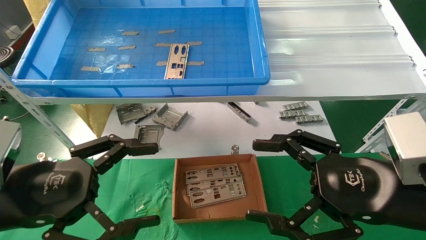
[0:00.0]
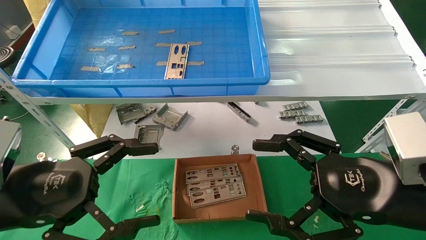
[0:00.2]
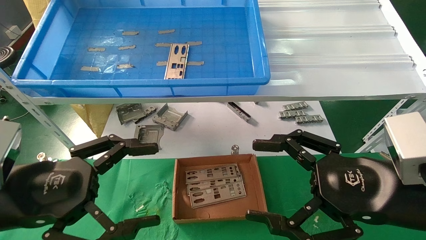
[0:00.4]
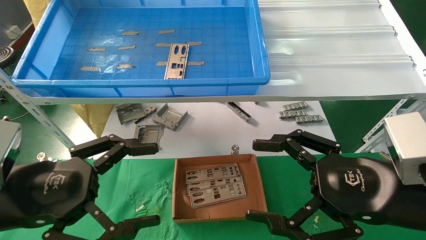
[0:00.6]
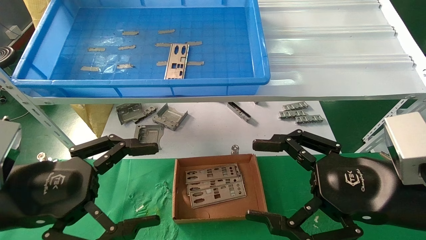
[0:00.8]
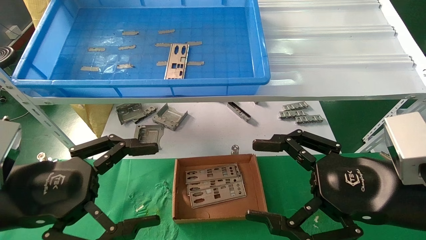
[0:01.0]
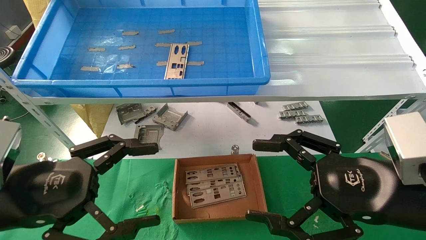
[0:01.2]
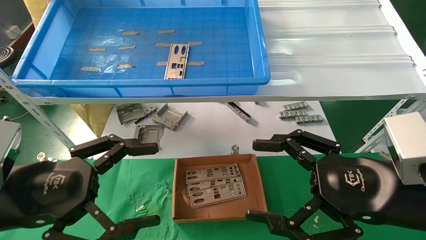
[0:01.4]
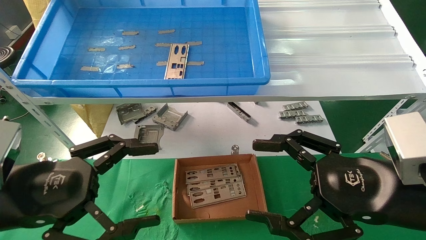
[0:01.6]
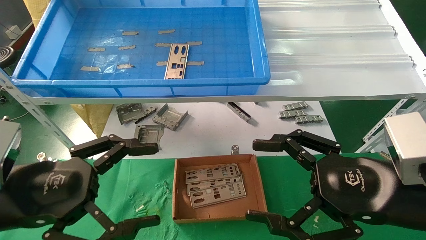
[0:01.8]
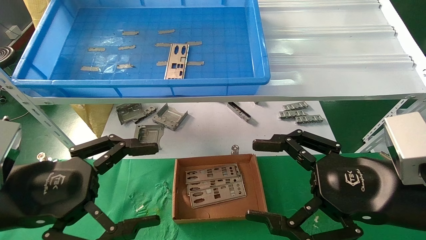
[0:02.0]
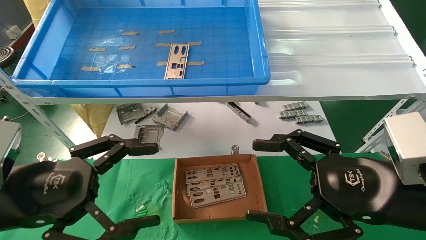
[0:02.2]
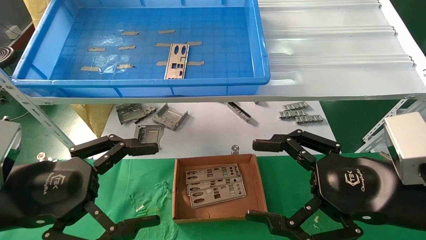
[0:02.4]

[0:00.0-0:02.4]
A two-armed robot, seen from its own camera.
Task of the whole recording: pick up the parts on the tray and put them in the cardboard box.
0:00.0 to 0:02.4: Both grippers stay put.

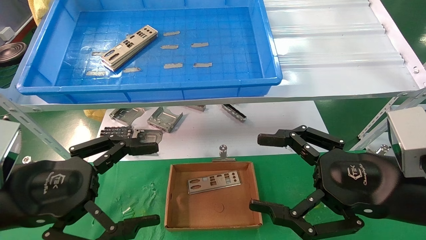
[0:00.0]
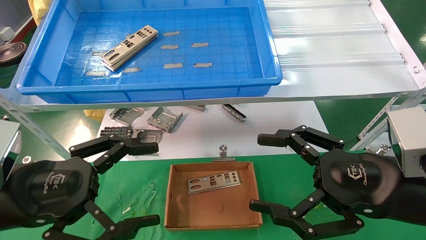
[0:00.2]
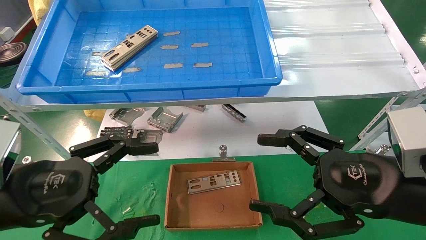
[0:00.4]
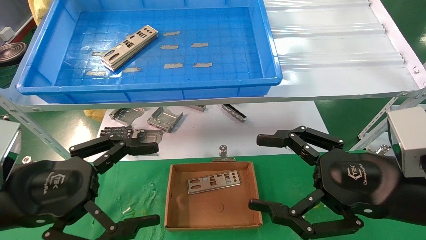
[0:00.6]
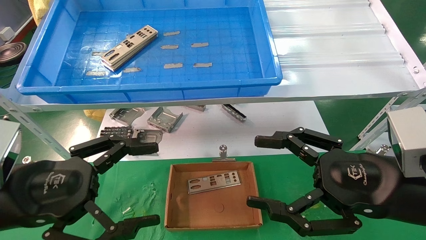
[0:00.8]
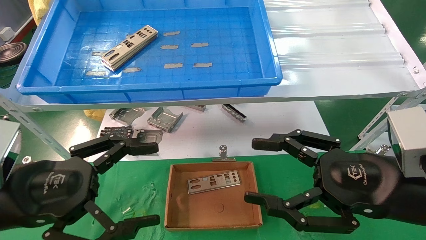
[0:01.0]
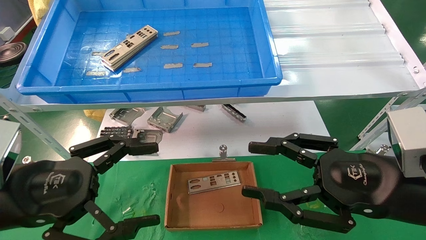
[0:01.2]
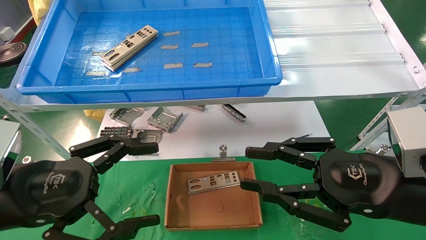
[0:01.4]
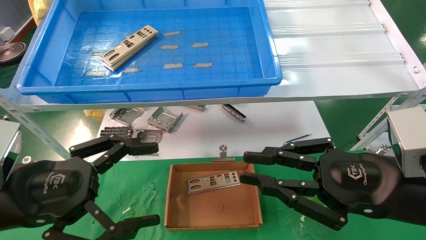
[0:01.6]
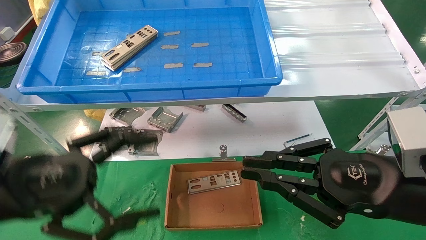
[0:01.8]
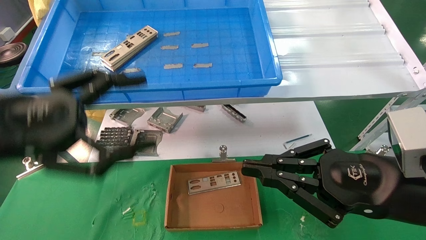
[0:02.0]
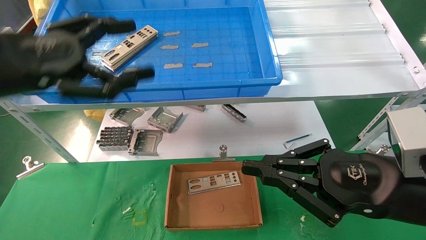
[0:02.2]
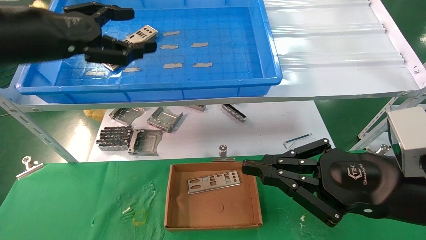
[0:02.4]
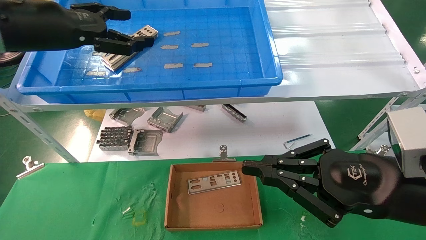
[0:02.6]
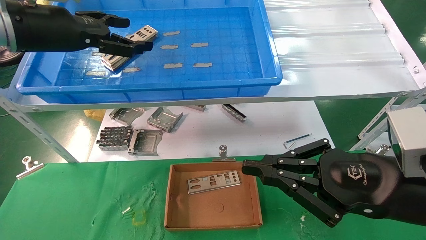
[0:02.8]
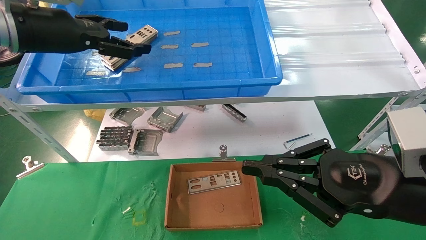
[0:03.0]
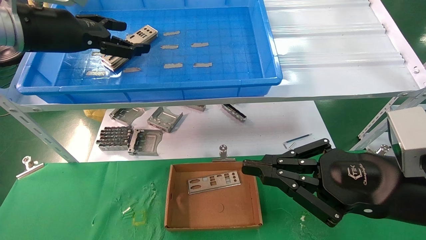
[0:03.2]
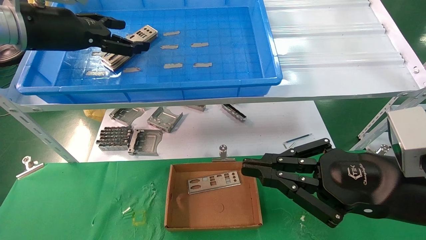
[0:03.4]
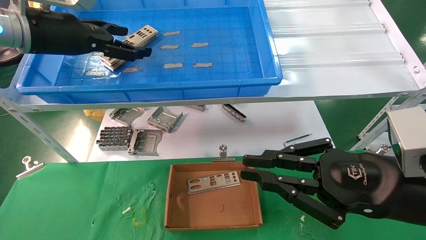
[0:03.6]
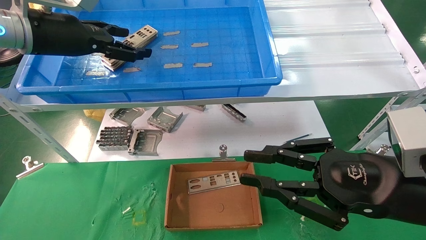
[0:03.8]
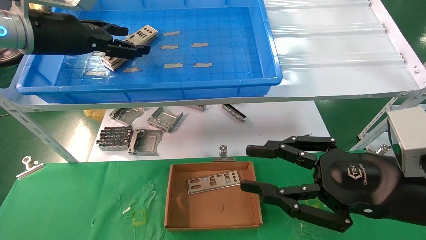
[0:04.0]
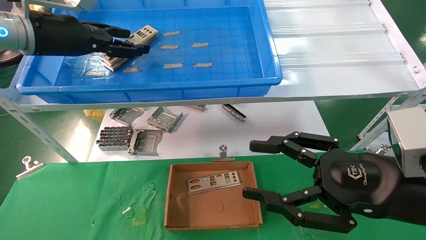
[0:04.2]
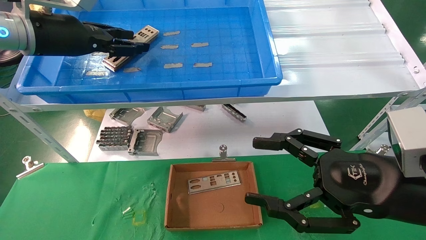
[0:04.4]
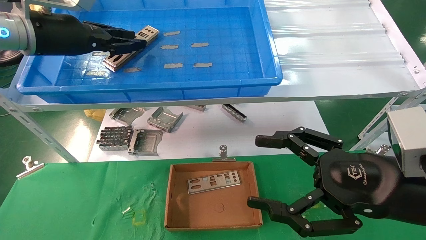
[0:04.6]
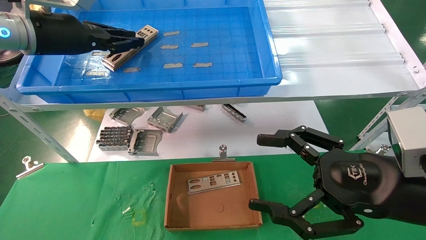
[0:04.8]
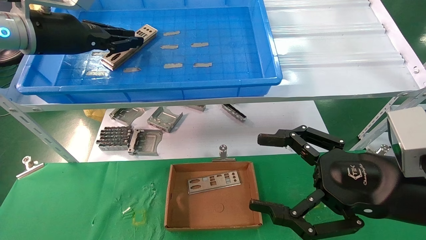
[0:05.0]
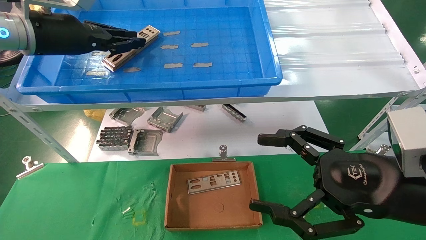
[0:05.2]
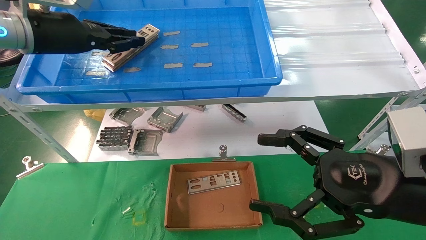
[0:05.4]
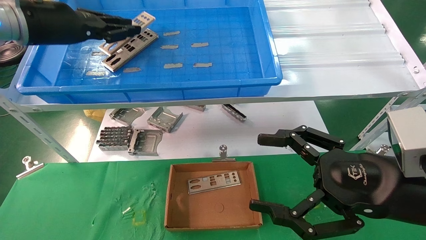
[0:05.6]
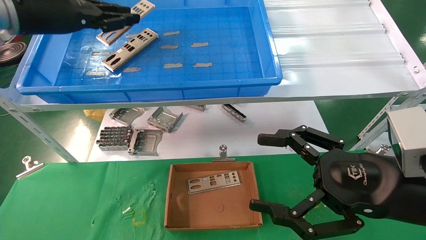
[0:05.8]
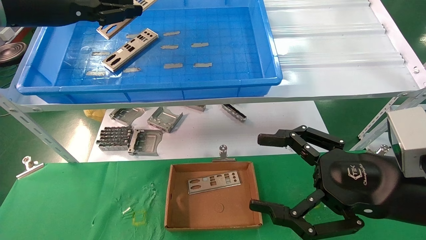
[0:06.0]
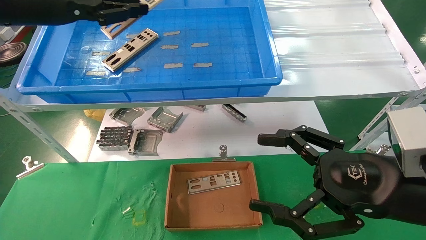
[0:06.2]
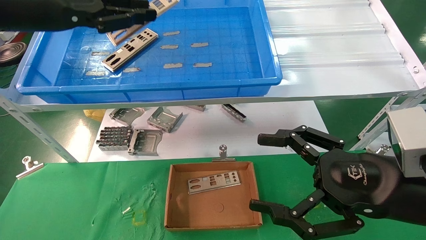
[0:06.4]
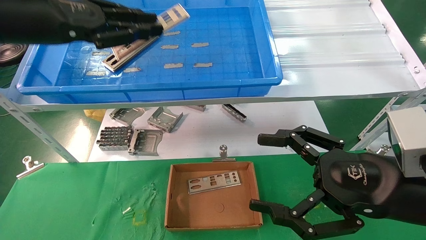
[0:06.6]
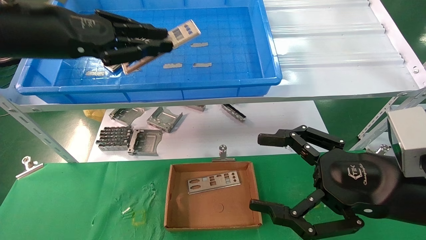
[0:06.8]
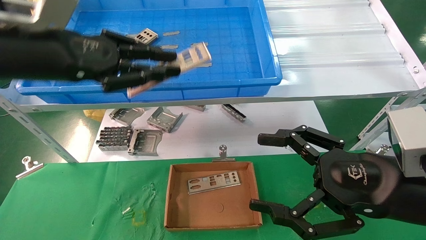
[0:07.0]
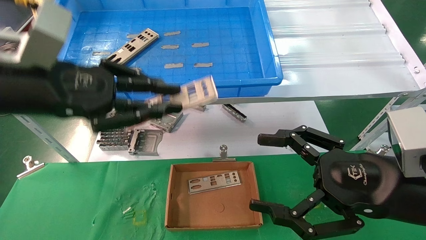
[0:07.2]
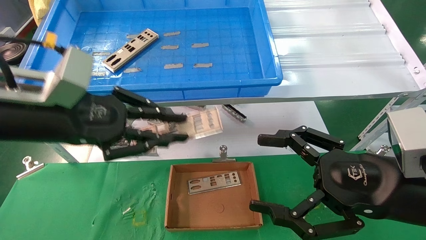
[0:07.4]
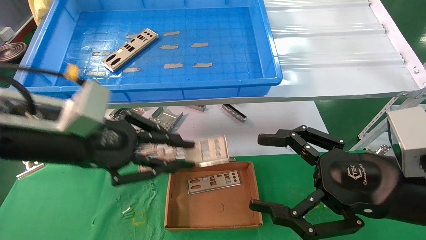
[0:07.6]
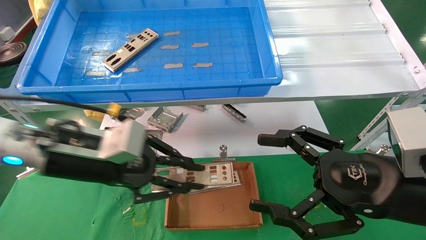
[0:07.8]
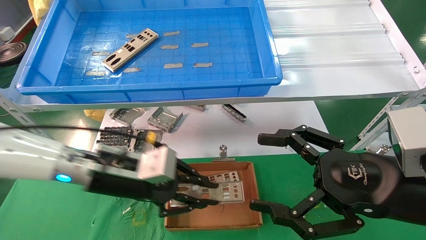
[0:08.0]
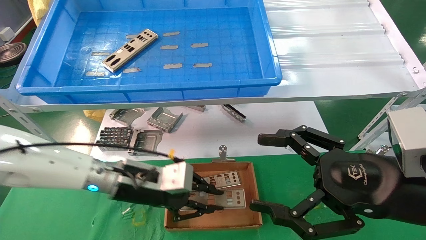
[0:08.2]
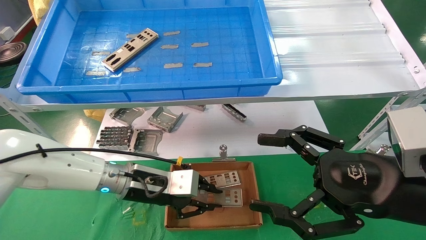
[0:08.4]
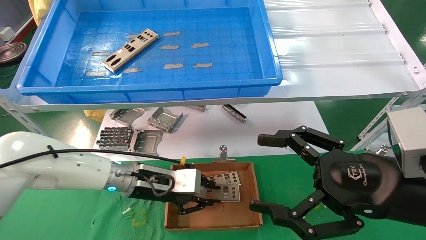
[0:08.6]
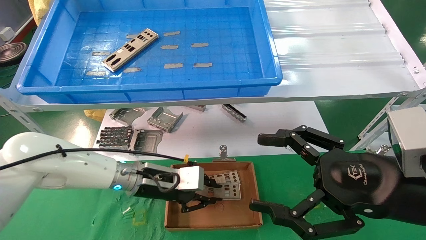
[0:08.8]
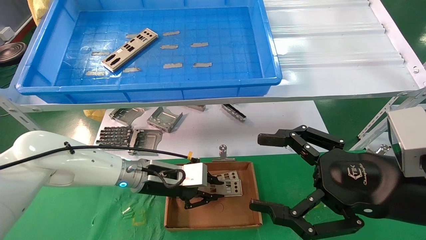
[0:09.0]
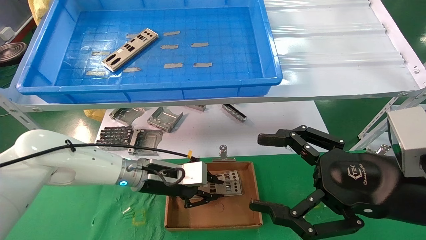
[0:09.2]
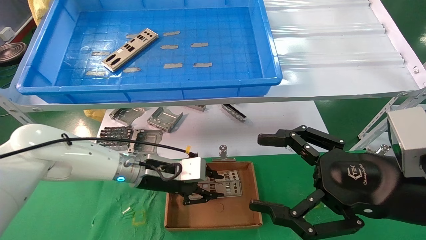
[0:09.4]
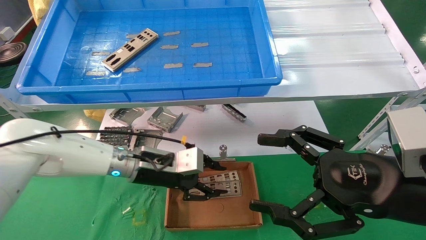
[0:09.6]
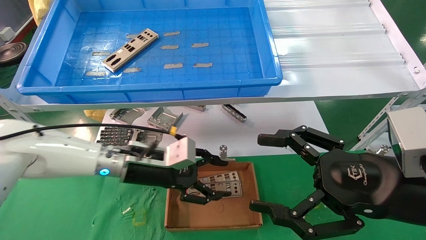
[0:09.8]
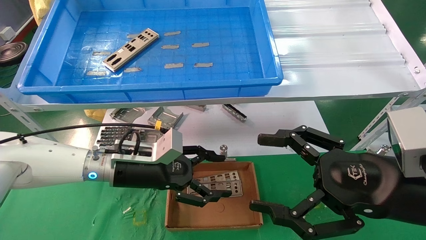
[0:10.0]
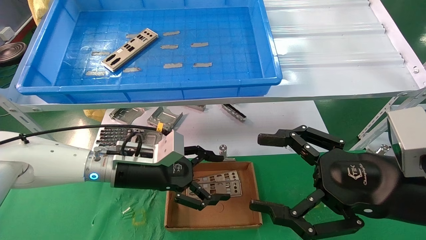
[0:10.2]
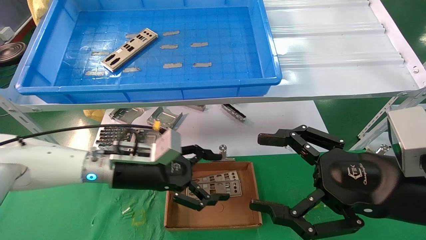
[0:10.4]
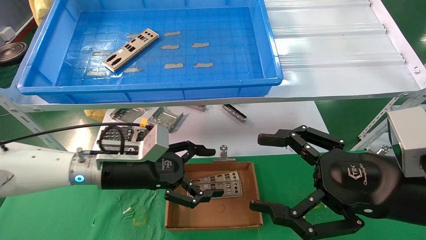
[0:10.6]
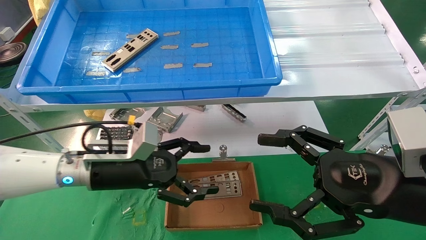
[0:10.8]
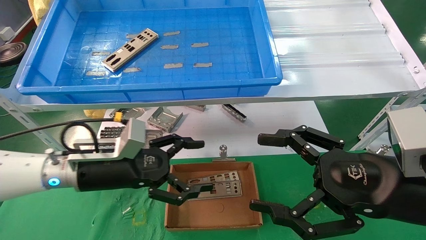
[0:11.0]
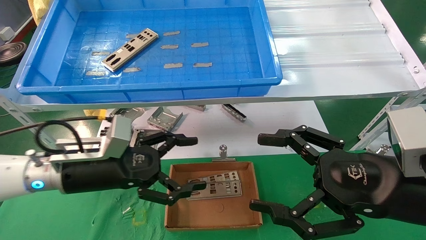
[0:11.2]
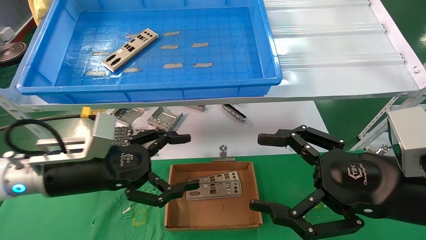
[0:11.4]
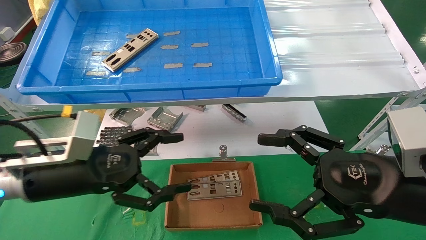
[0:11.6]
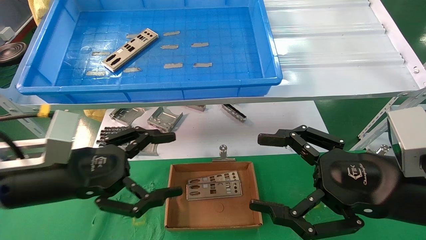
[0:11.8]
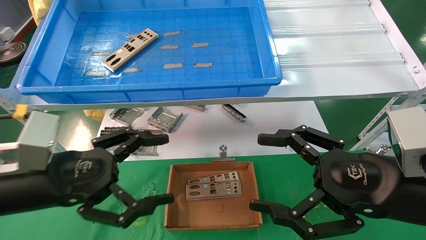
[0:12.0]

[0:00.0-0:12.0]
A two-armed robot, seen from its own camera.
Task of the whole recording: pick up the parts on the tray and put them in the cardboard box.
Step, 0:02.2 to 0:04.8: Pick up the IO bracket from the container box.
Step, 0:05.0 to 0:09.4: Place the IO bracket into the ingredient slot.
0:00.0 to 0:01.6: The right gripper closes.
0:01.6 to 0:03.0: The left gripper moves upward and forward, about 25 cm.
0:03.0 to 0:04.4: The right gripper opens its fingers; the left gripper closes.
0:04.4 to 0:06.0: The left gripper shifts by some 5 cm, and closes its fingers.
0:06.0 to 0:07.6: The left gripper travels downward, backward and to the right by approximately 20 cm.
0:07.6 to 0:09.0: The left gripper moves downward, forward and to the right, about 20 cm.
0:09.0 to 0:10.4: The left gripper changes place by approximately 5 cm, and opens its fingers.
0:10.4 to 0:12.0: The left gripper is displaced backward and to the left by roughly 15 cm.

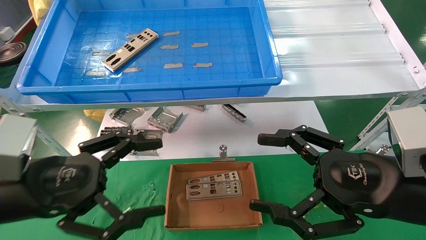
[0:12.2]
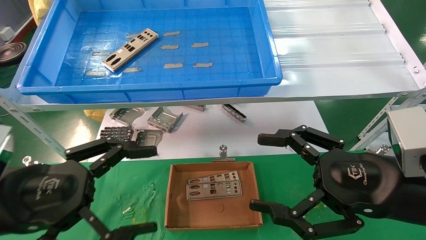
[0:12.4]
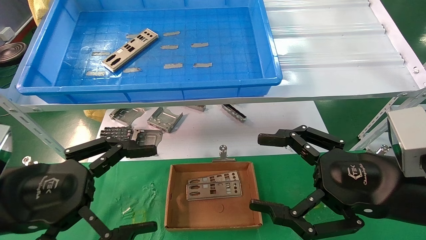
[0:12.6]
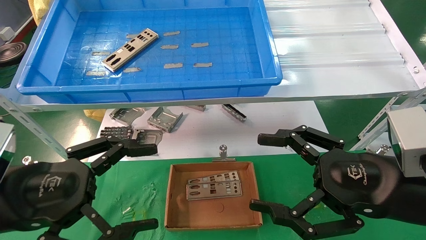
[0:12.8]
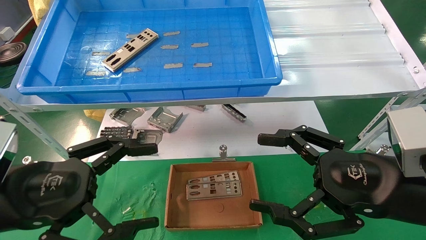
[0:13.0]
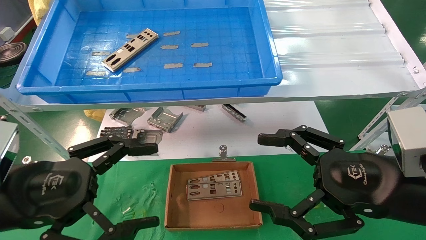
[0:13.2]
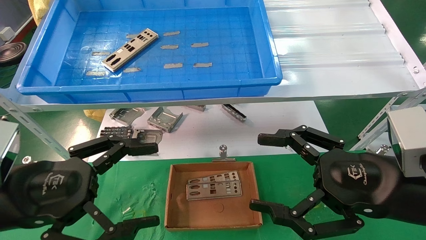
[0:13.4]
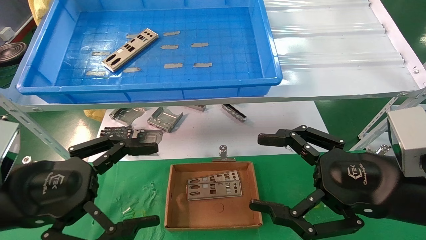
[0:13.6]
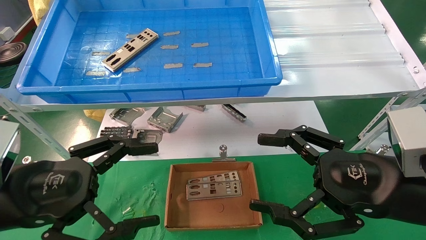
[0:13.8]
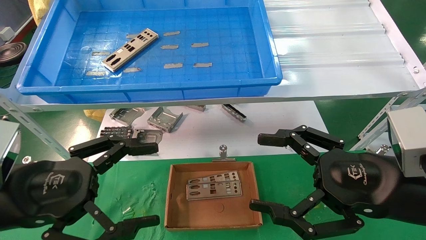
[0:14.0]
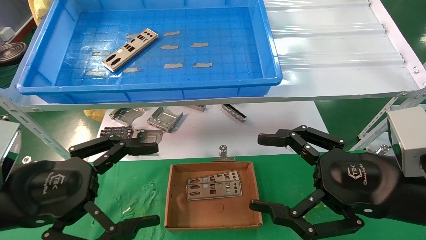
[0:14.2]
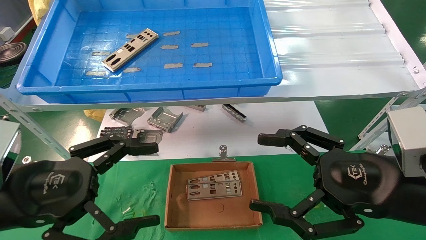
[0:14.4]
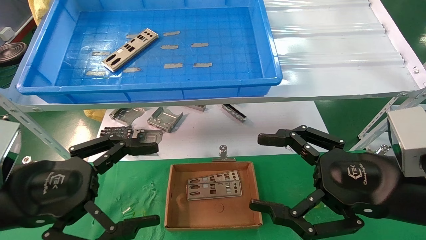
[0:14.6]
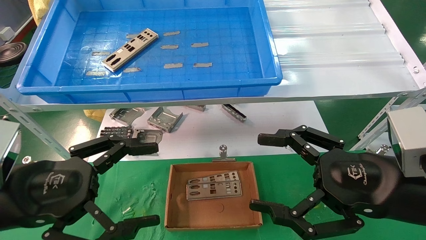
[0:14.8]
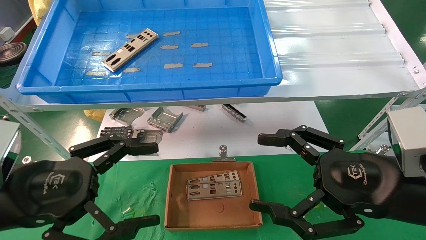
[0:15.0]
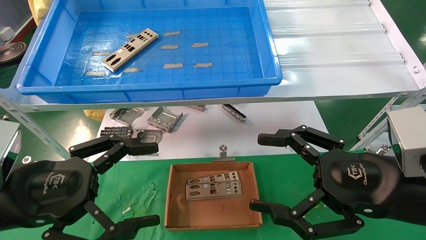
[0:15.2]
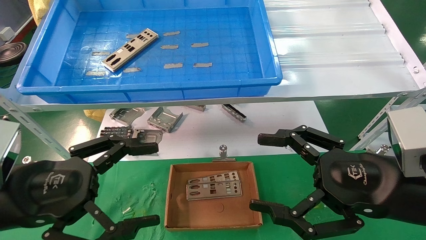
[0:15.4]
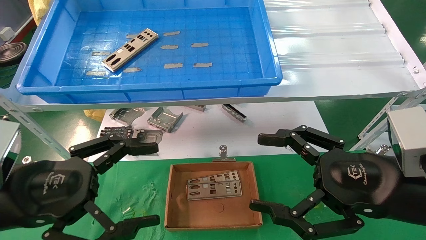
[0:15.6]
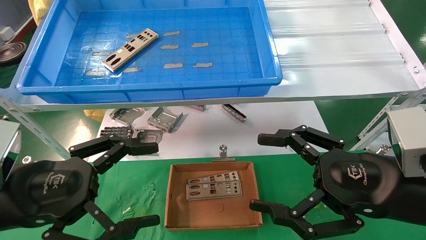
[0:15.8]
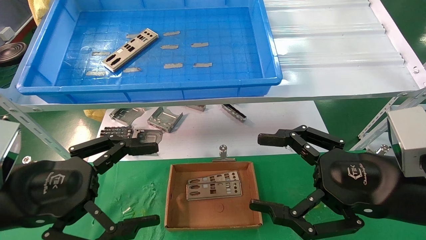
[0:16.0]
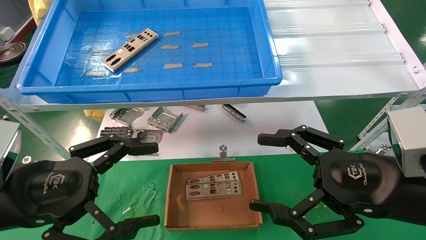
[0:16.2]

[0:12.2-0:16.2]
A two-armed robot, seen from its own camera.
Task of the whole recording: pick up the parts on the tray and put them in the cardboard box.
0:12.2 to 0:13.6: The grippers move only a little.
0:13.6 to 0:16.2: Both grippers stay put.
